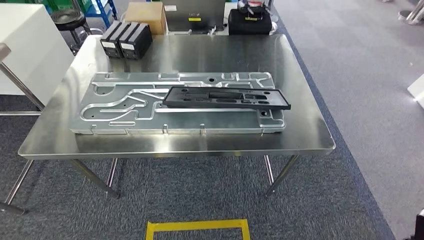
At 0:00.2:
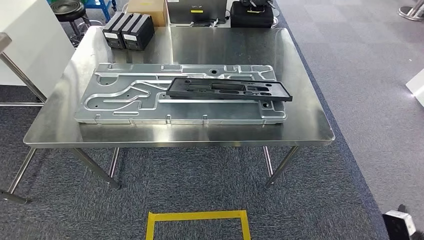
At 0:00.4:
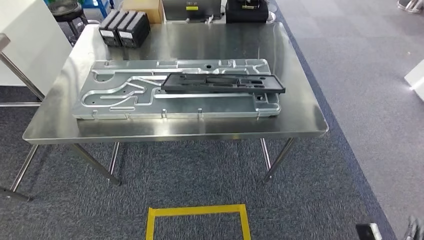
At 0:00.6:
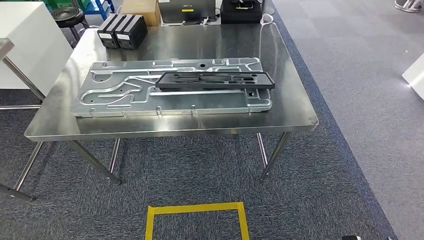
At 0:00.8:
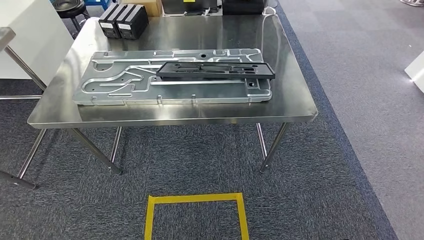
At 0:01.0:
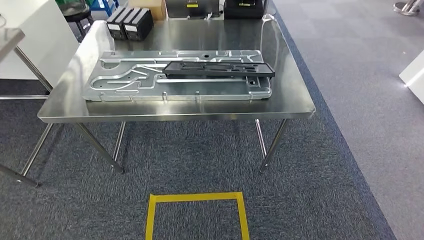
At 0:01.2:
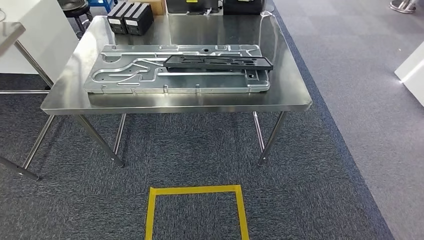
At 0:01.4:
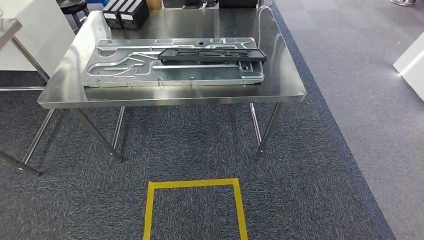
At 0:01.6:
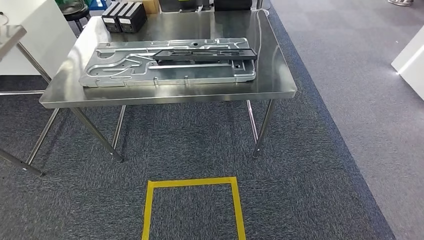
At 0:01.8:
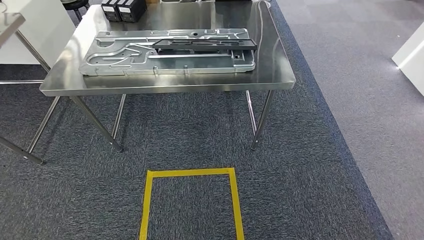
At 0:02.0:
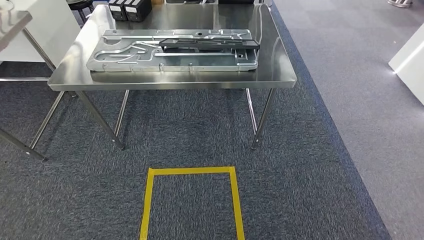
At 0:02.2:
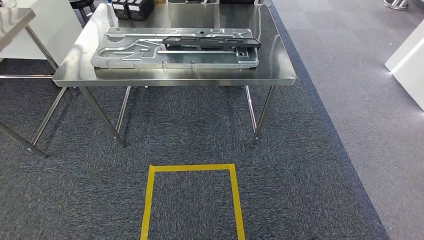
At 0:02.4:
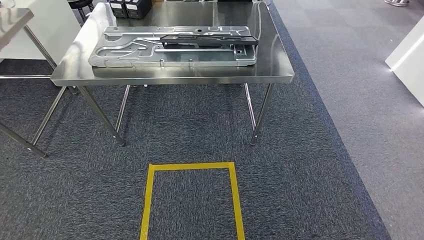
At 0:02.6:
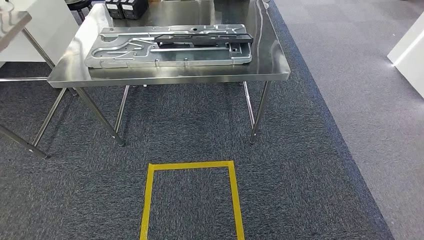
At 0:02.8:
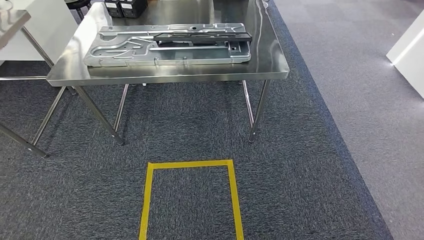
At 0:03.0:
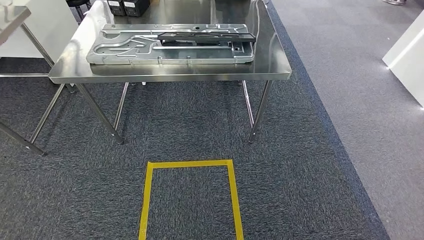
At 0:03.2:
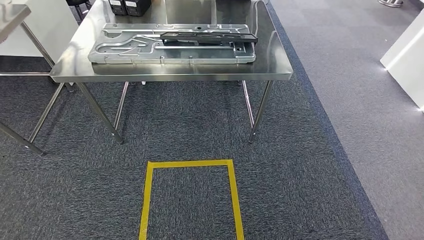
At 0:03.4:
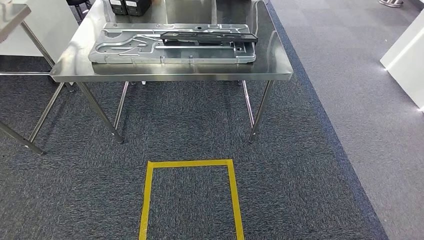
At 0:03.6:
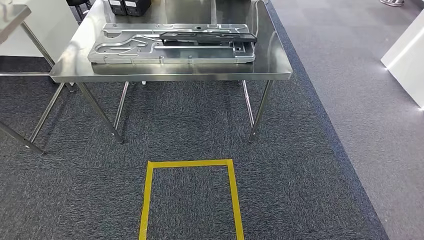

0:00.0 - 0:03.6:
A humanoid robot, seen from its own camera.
Step, 0:00.0 - 0:03.4: Return to the initial position at the shelf.
0:01.8 - 0:03.6: The hands stay close to where they were, moving slightly.
